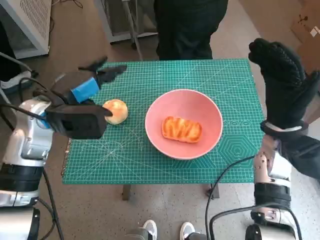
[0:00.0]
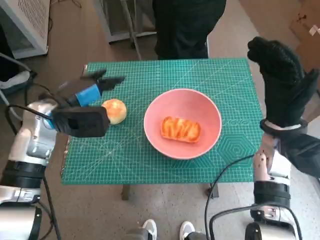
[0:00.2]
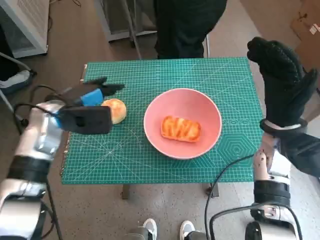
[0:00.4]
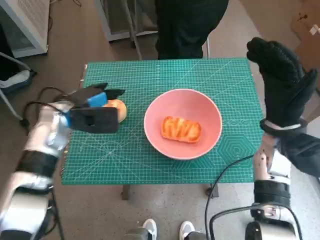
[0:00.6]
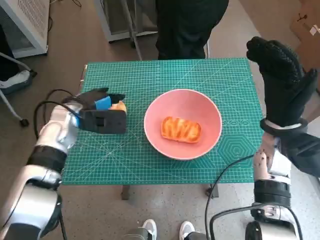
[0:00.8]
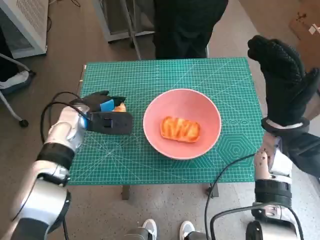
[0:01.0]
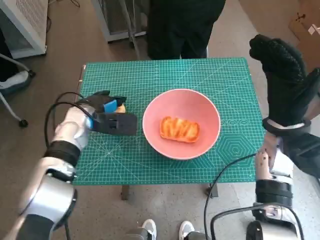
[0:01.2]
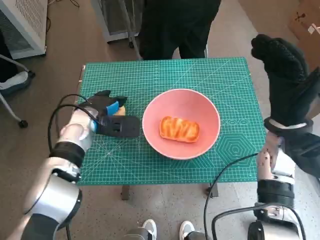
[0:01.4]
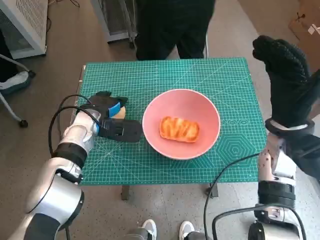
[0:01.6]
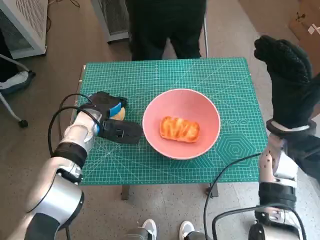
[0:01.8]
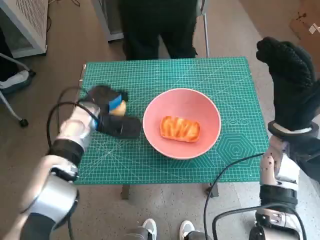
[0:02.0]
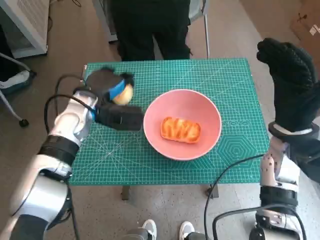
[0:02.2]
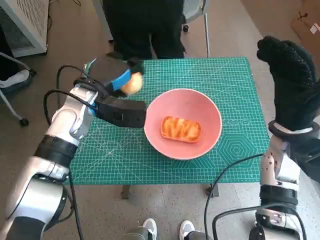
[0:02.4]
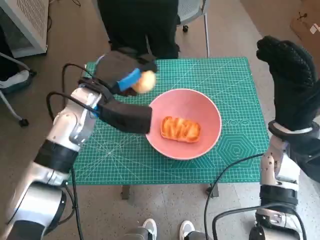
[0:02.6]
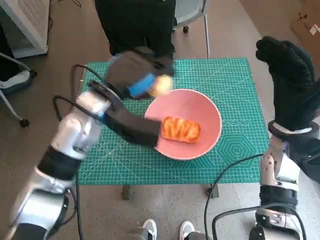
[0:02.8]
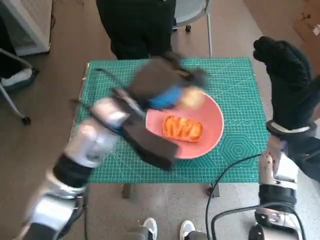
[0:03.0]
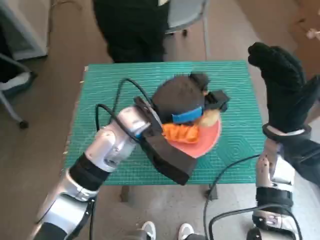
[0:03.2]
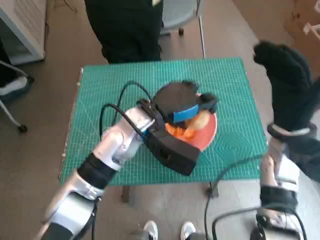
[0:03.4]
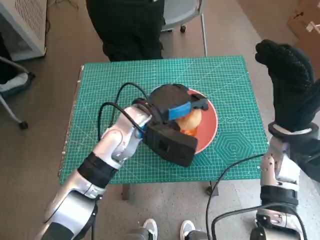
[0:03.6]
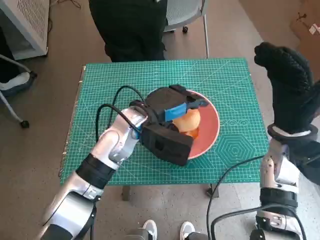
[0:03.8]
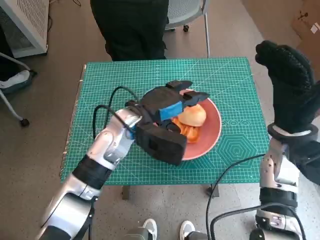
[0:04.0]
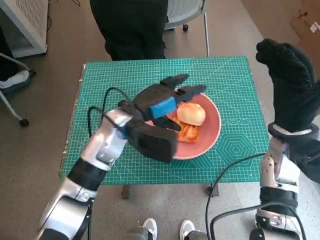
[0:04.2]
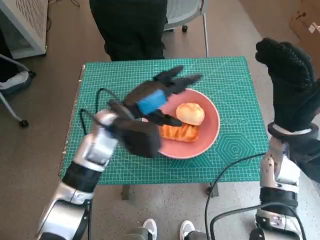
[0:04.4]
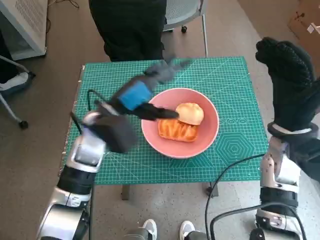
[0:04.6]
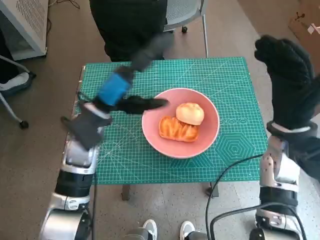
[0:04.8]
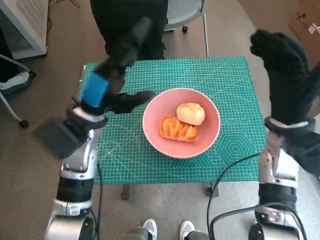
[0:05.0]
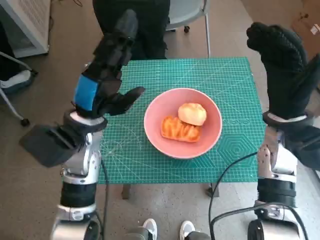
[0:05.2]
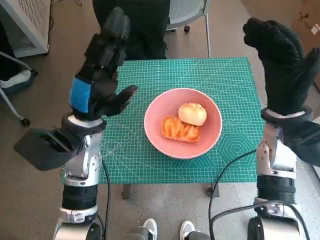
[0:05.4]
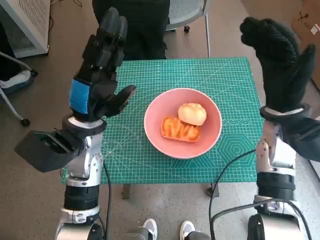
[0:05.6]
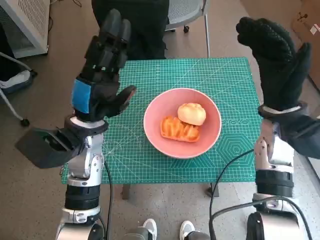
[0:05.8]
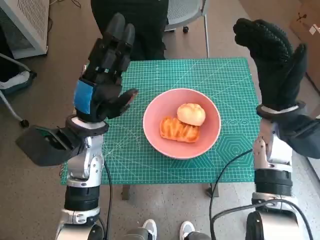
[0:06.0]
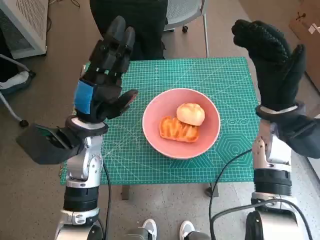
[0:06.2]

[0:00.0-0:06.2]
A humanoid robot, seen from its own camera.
Step, 0:00.0 to 0:01.8: Grasp the round bread with left hand.
Step, 0:02.0 to 0:04.2: Place the round bread in pink bowl with left hand.
0:00.0 to 0:01.6: The left hand travels downward by some 10 cm.
0:01.6 to 0:03.2: The left hand goes about 15 cm to the right and upward.
0:03.2 to 0:04.6: The left hand heads to the left, covering some 5 cm.

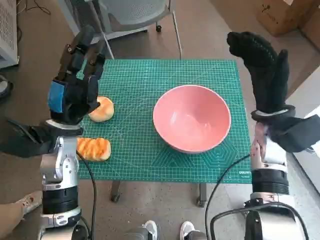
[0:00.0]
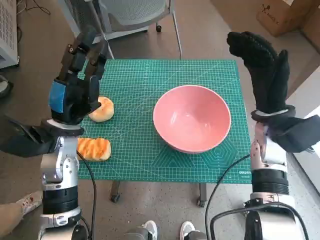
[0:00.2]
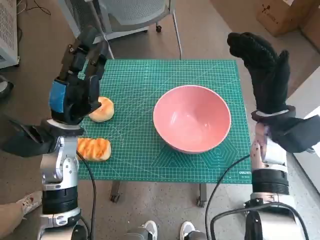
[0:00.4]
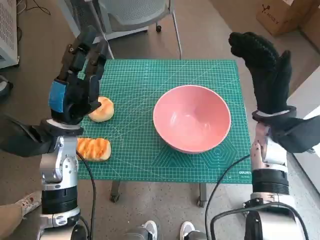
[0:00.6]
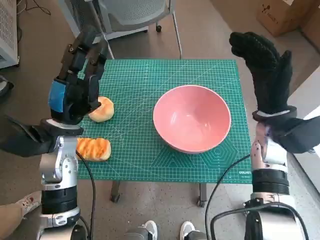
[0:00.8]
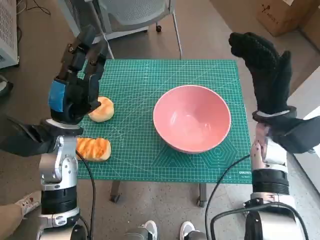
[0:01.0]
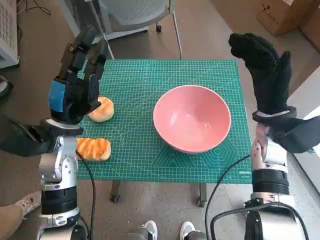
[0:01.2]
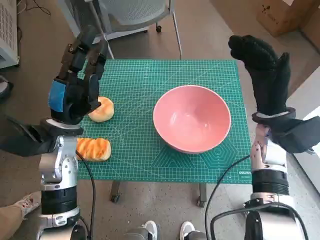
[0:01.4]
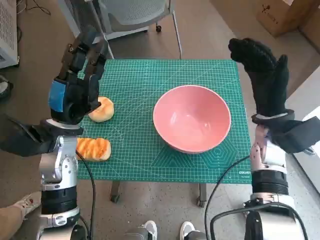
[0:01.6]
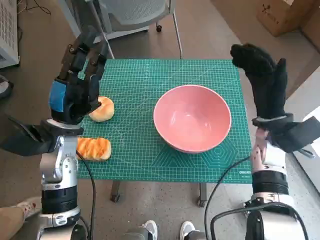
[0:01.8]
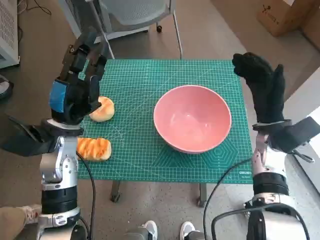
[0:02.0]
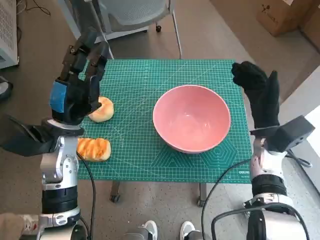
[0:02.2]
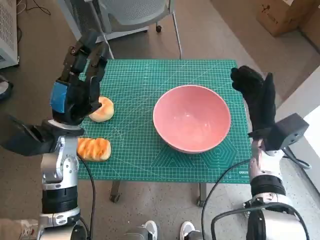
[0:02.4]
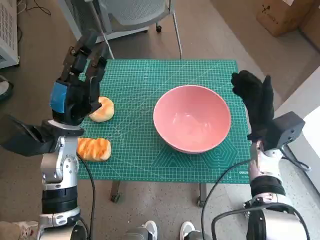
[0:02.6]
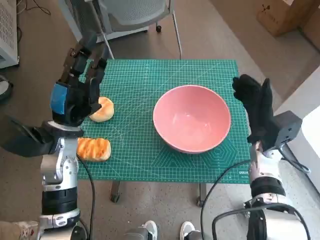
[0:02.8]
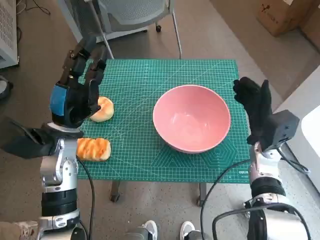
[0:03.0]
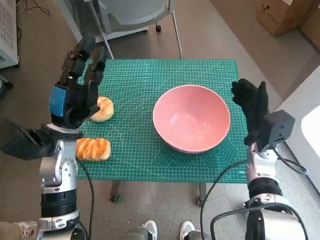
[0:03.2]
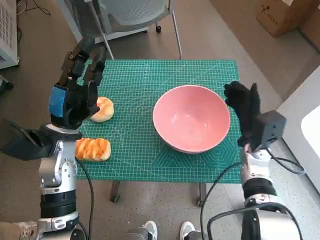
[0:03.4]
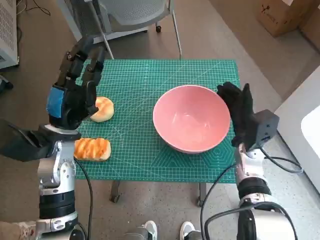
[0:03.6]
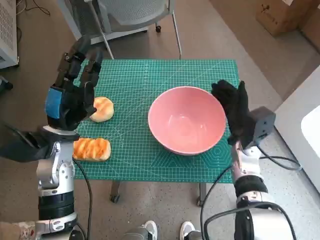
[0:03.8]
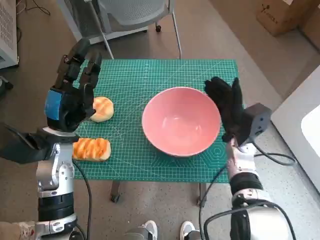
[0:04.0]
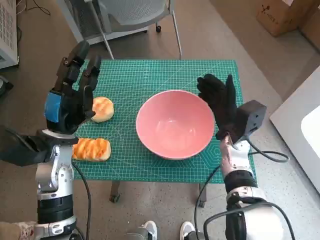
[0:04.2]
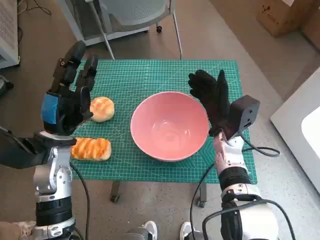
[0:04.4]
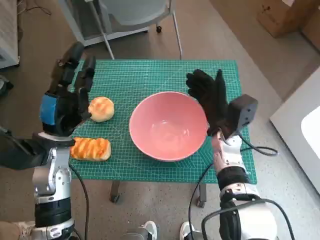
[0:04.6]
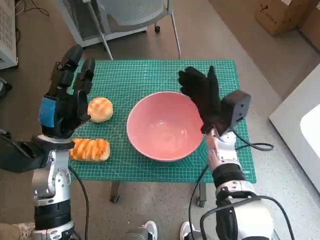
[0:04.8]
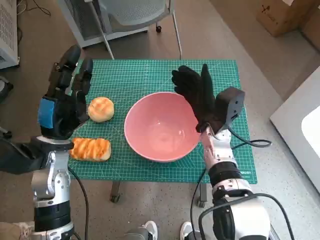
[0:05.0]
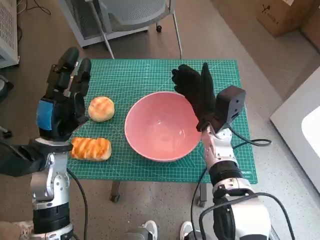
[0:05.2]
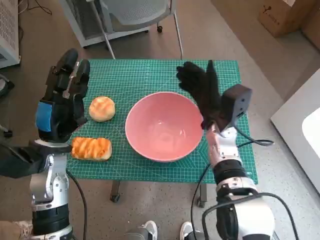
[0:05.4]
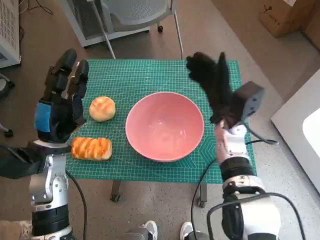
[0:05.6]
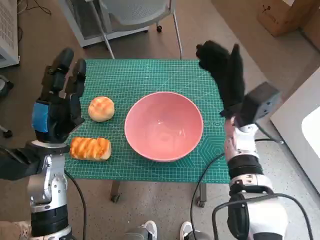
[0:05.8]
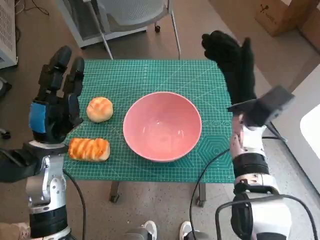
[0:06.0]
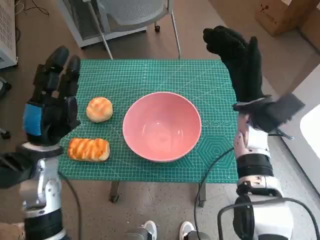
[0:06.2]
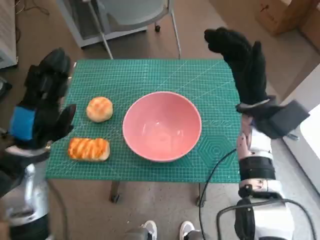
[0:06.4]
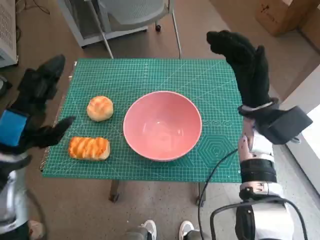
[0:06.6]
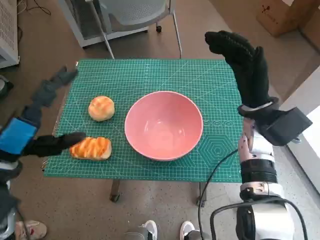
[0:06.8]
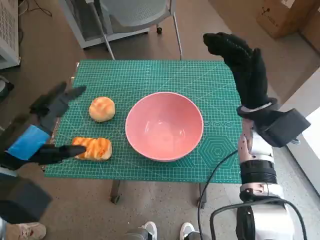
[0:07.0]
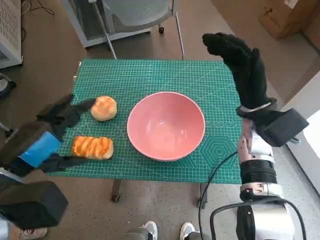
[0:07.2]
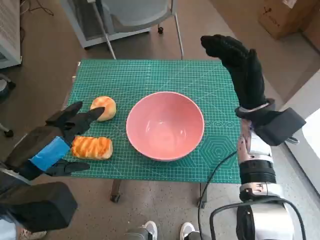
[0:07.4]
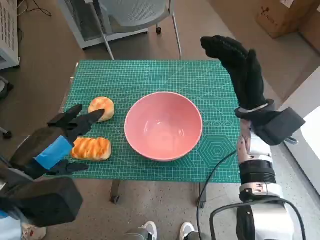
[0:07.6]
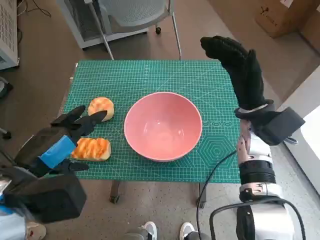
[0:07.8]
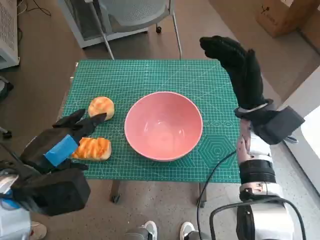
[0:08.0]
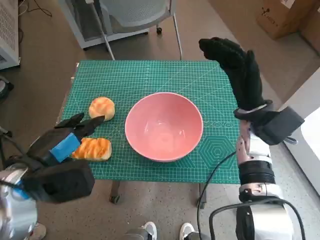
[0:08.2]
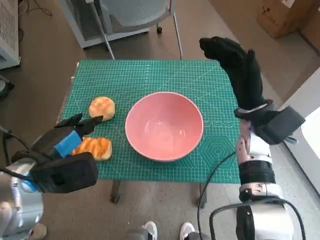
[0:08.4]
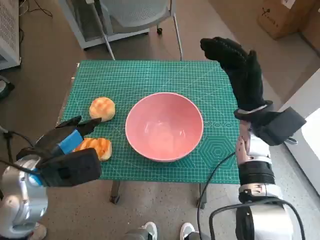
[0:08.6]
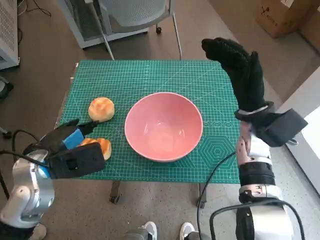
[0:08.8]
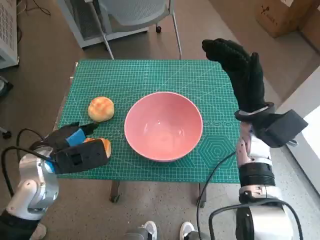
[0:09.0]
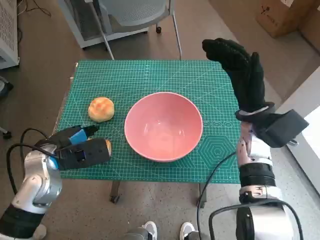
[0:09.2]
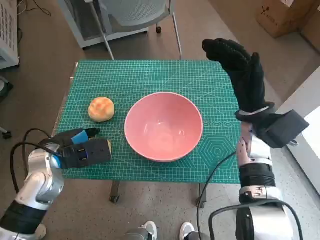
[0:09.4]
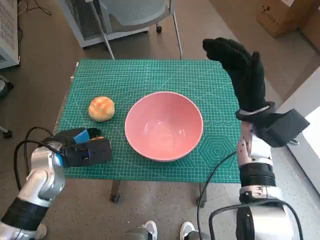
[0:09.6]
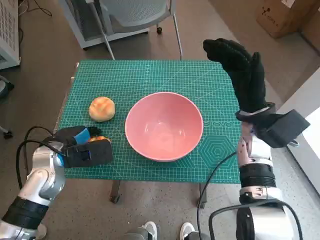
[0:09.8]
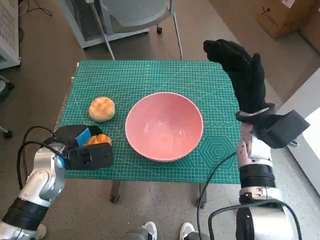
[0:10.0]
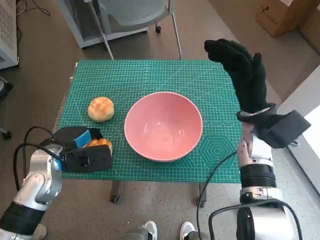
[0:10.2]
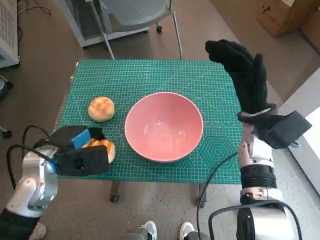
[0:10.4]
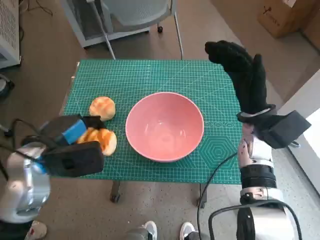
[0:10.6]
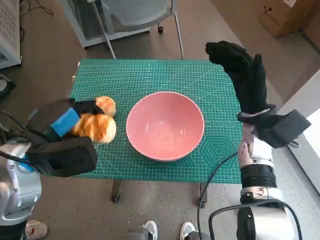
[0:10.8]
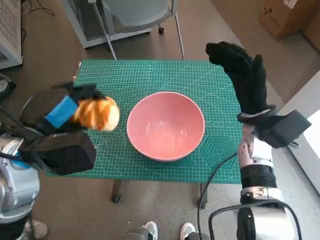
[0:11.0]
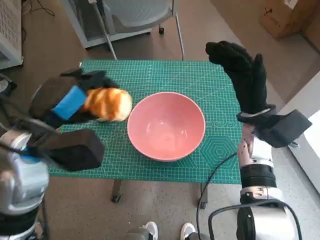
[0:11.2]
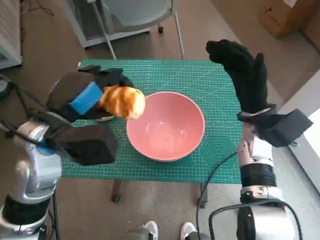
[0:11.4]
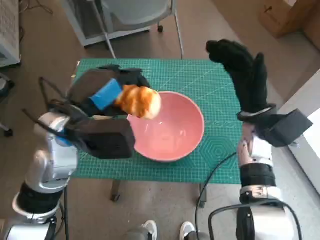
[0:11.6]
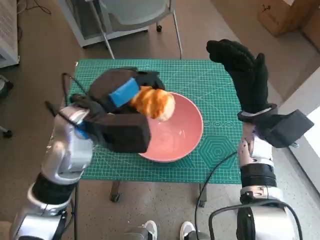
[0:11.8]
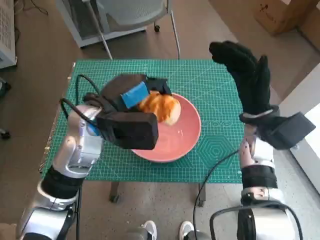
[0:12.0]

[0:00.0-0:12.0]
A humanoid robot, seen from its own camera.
Step, 0:00.0 to 0:05.4: Move the pink bowl to the center of table with right hand.
Step, 0:05.6 to 0:10.0: Grasp the long bread with left hand.
0:01.6 to 0:03.0: The right hand is displaced downward by approximately 10 cm.
0:03.0 to 0:04.4: The right hand shifts roughly 10 cm to the left.
0:04.4 to 0:06.0: The right hand moves upward, approximately 5 cm.
0:06.0 to 0:07.6: The left hand goes about 10 cm backward and upward.
0:07.6 to 0:09.0: The left hand heads downward and forward, covering about 10 cm.
0:09.0 to 0:10.4: The hands move only a little.
0:10.4 to 0:12.0: The left hand goes about 15 cm to the right and upward.

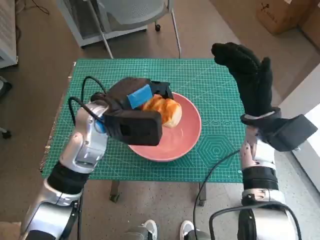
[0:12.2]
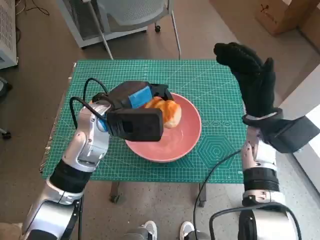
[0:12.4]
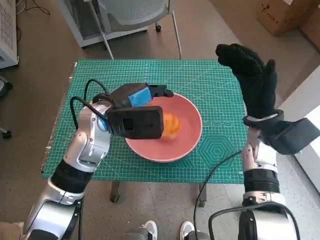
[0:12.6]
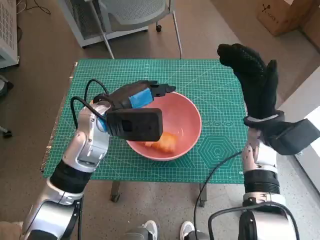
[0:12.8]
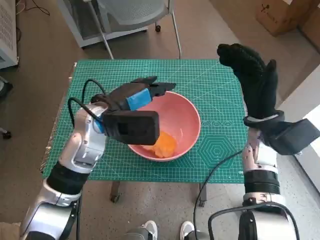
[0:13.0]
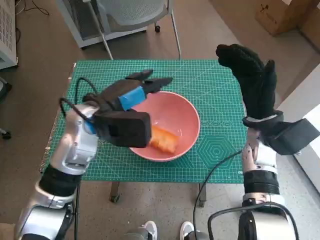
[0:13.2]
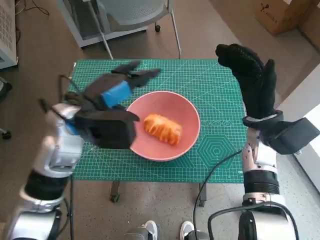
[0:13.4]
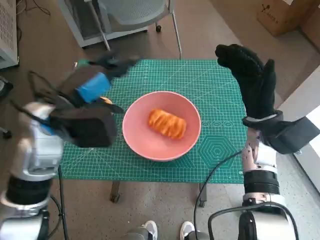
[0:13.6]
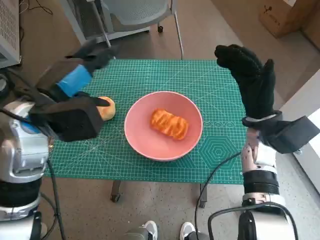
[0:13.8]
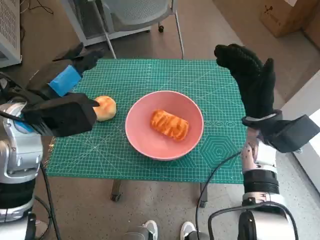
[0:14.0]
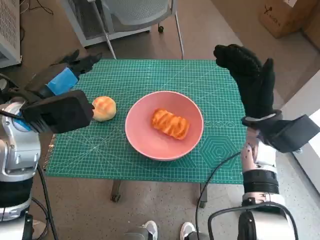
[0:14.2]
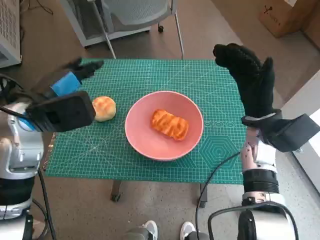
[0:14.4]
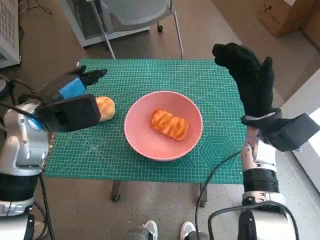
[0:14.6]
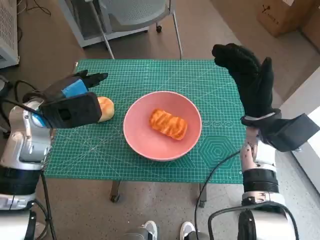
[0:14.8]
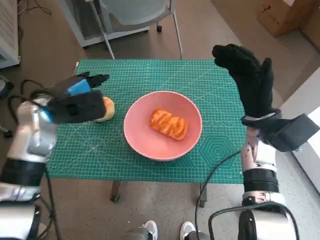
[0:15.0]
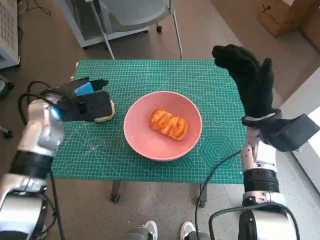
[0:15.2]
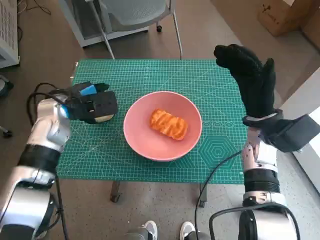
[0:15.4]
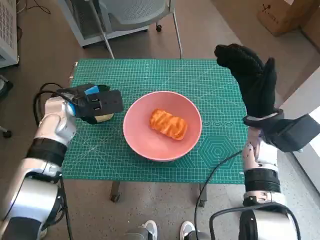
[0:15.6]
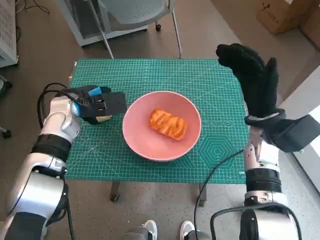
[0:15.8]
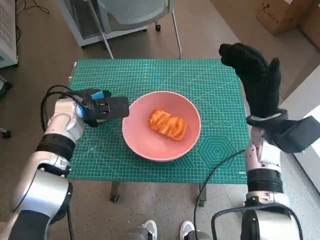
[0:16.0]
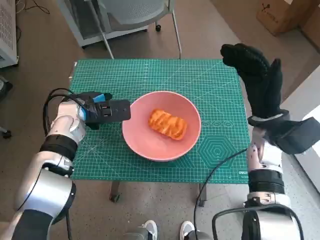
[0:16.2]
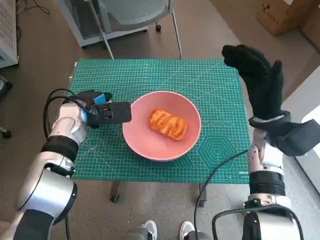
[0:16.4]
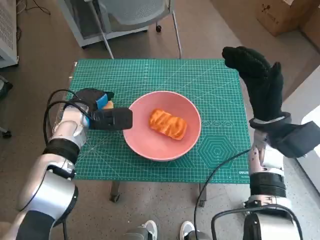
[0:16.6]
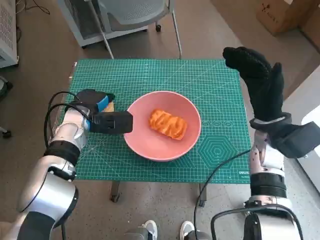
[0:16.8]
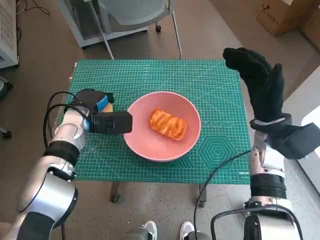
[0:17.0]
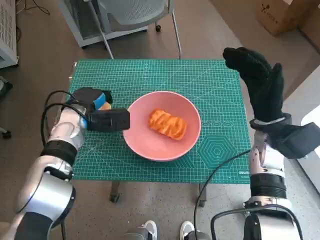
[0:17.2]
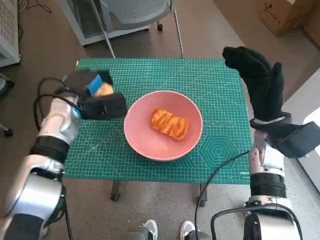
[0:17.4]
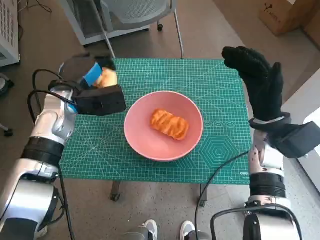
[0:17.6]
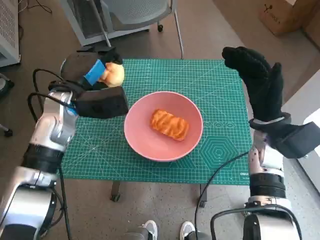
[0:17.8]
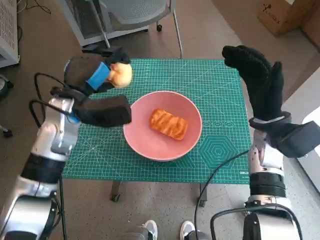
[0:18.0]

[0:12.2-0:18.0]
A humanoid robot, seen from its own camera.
Step, 0:13.0 to 0:17.0: Grasp the round bread with left hand.
0:12.2 to 0:13.6: The left hand moves to the left, about 5 cm.
0:13.6 to 0:15.0: The left hand is displaced to the left by approximately 5 cm.
0:15.0 to 0:16.6: The left hand goes about 10 cm downward.
0:16.6 to 0:18.0: The left hand goes approximately 5 cm upward.
